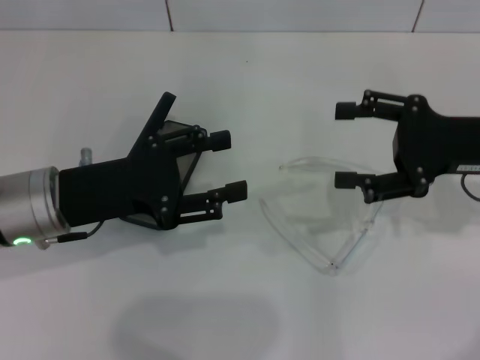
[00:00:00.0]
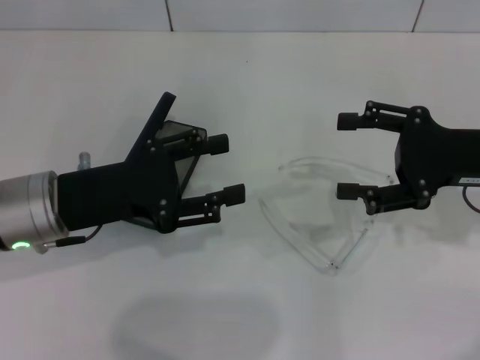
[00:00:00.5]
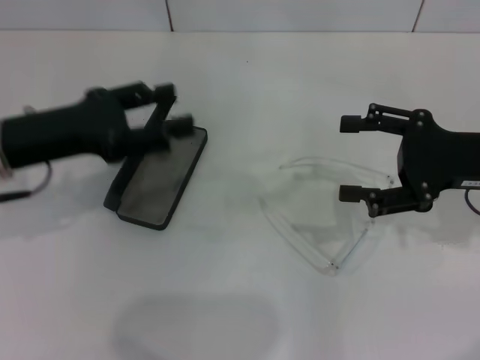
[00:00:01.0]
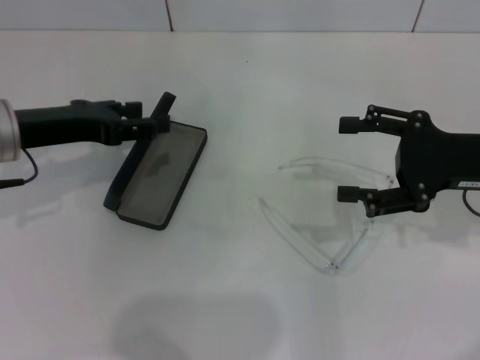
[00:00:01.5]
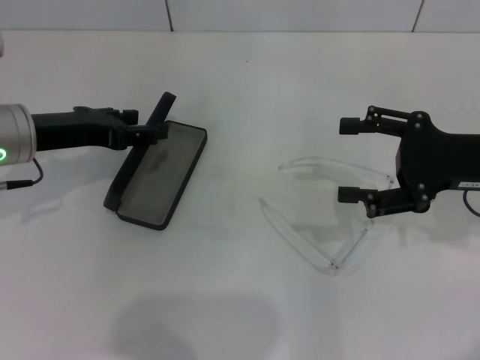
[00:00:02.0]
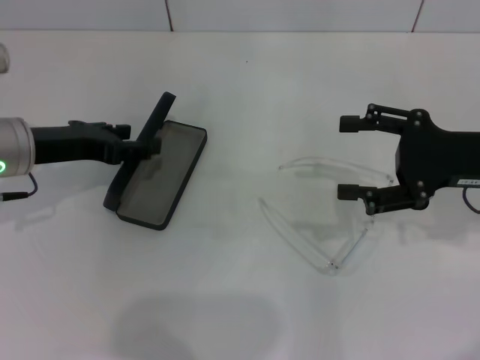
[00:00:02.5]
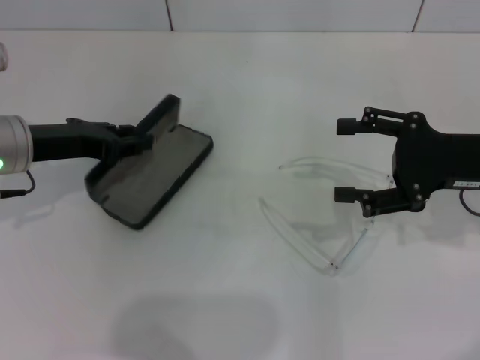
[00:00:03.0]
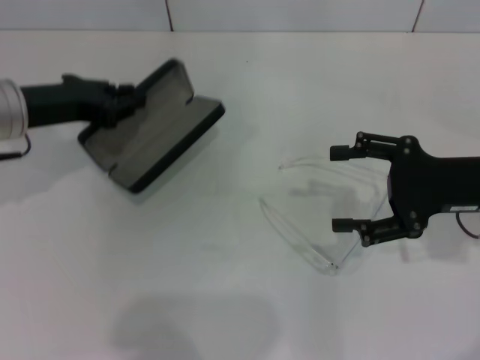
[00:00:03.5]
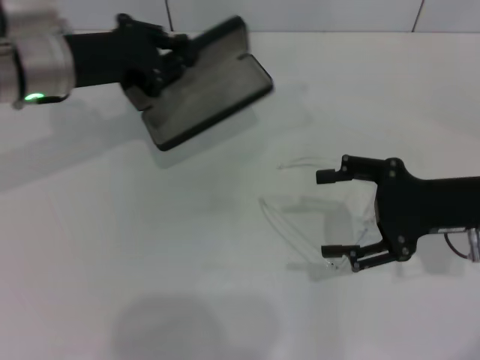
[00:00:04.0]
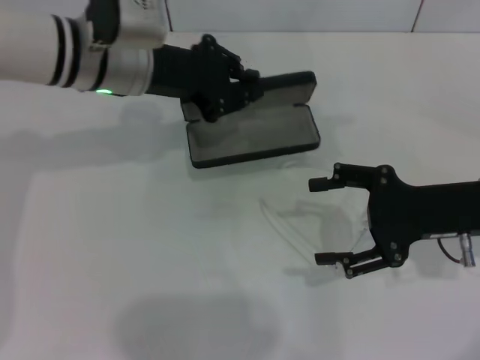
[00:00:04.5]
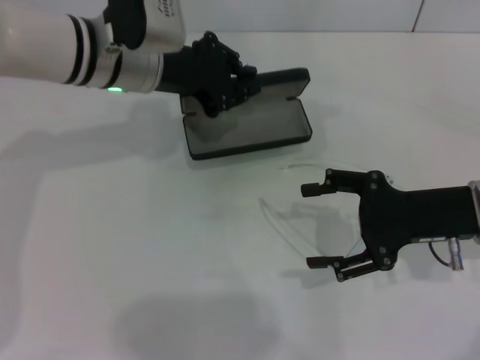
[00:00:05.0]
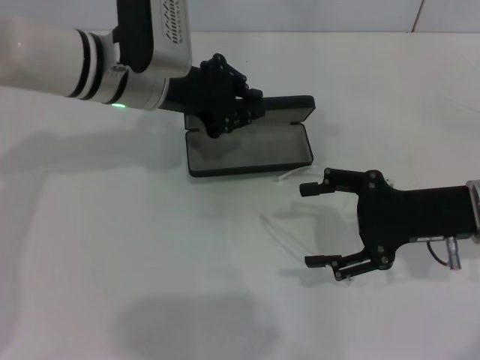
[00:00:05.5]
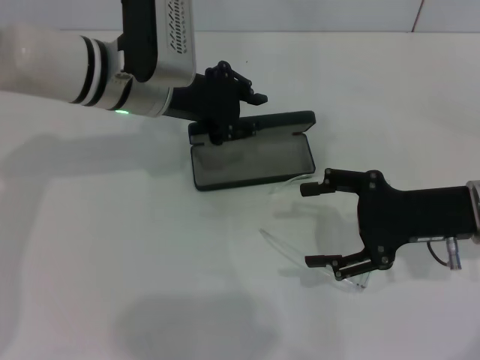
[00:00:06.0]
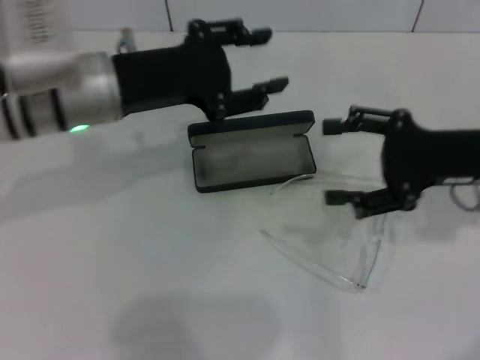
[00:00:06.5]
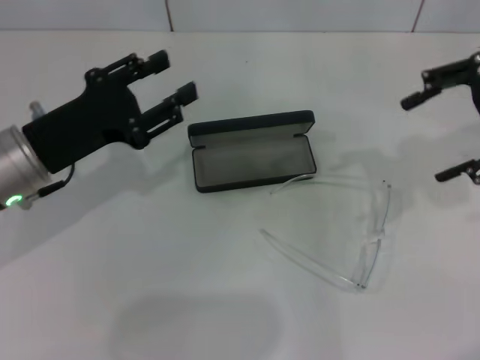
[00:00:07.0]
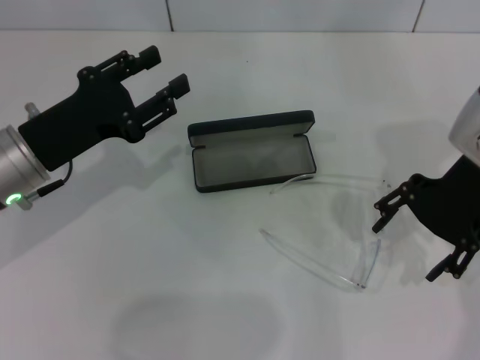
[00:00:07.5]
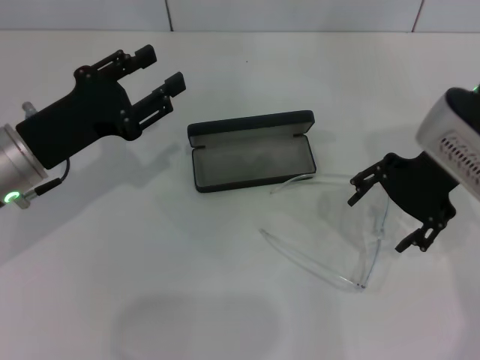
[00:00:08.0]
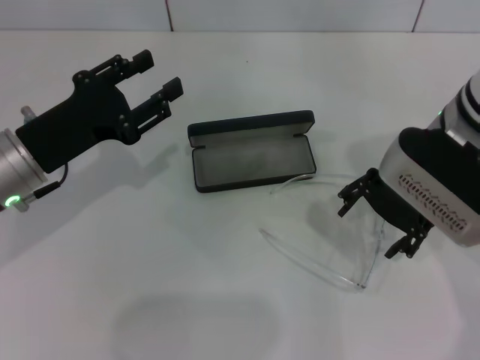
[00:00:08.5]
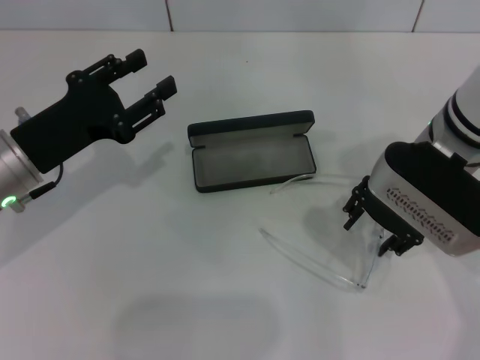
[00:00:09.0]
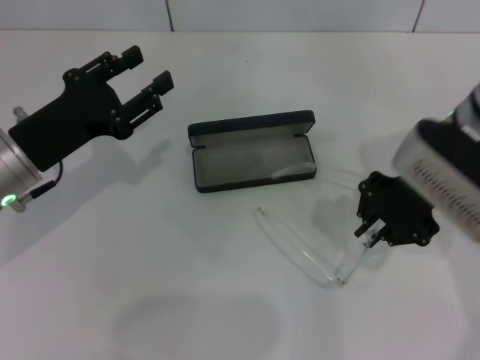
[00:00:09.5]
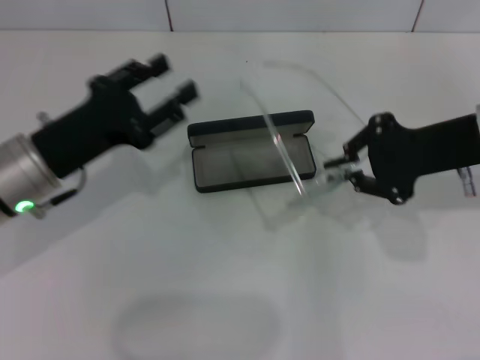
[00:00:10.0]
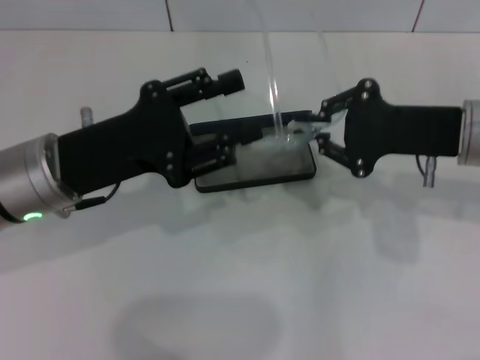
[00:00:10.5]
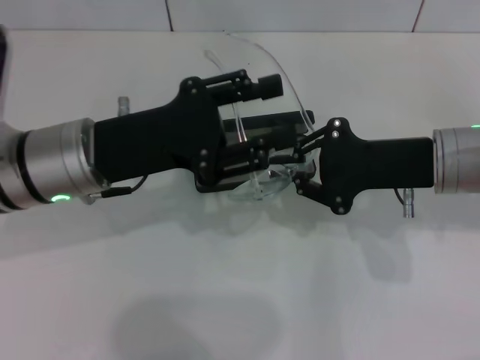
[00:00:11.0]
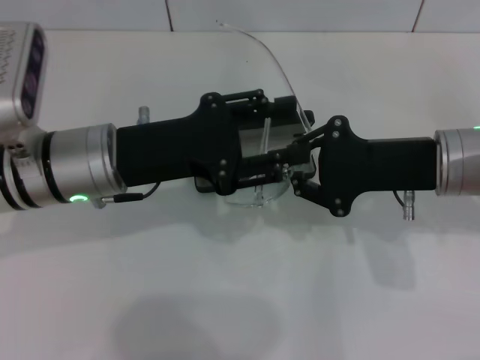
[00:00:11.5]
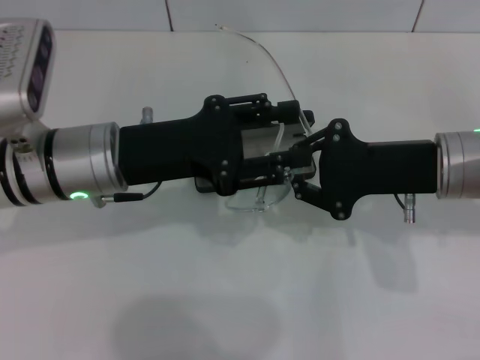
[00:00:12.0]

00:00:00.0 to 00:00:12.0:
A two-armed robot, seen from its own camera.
Step, 00:00:00.0 to 00:00:03.0: Grab the glasses case with your left hand.
Step, 00:00:03.5 to 00:00:05.5: Place the glasses case in the center of the table with your left hand.
Step, 00:00:06.0 to 00:00:09.0: Grab the eyeglass frame with your right hand.
00:00:00.0 to 00:00:02.0: The left gripper goes roughly 5 cm forward.
00:00:02.0 to 00:00:04.0: The left gripper ends up about 5 cm from where it was, and closes.
00:00:04.0 to 00:00:06.0: The left gripper heads to the right, covering about 10 cm.
00:00:06.0 to 00:00:08.0: The left gripper is displaced to the left and backward by about 15 cm, and opens. The right gripper is displaced upward and to the left by about 10 cm.
00:00:08.0 to 00:00:10.0: The right gripper changes place by some 5 cm, and closes its fingers.
00:00:10.0 to 00:00:12.0: The left gripper goes approximately 5 cm to the right. The right gripper moves about 5 cm.

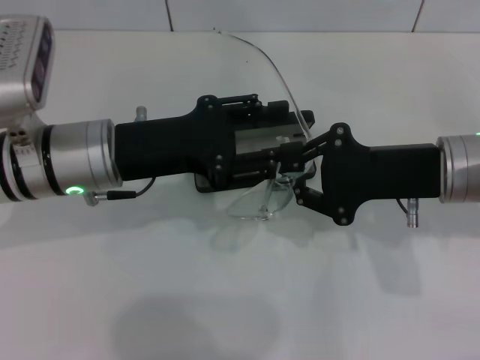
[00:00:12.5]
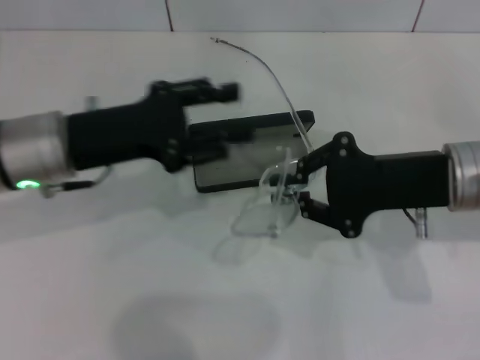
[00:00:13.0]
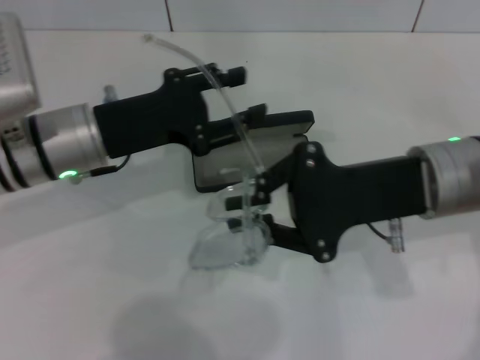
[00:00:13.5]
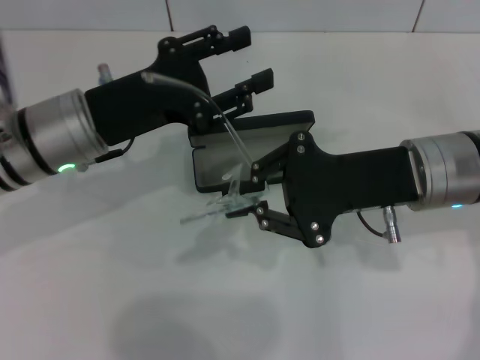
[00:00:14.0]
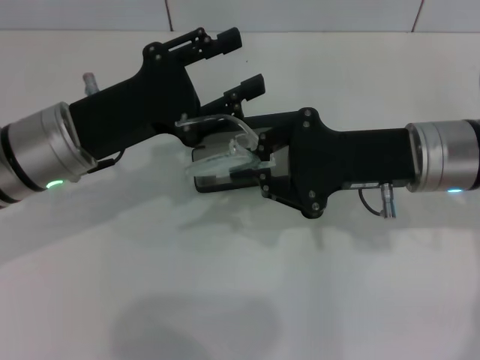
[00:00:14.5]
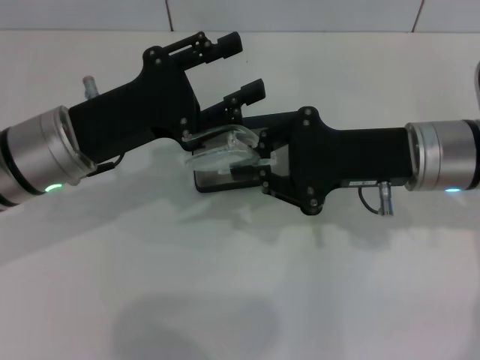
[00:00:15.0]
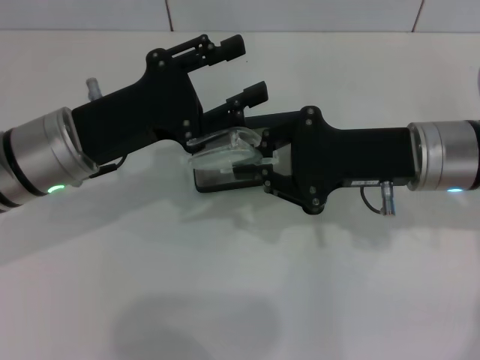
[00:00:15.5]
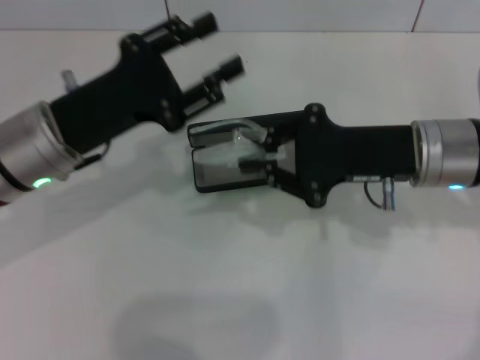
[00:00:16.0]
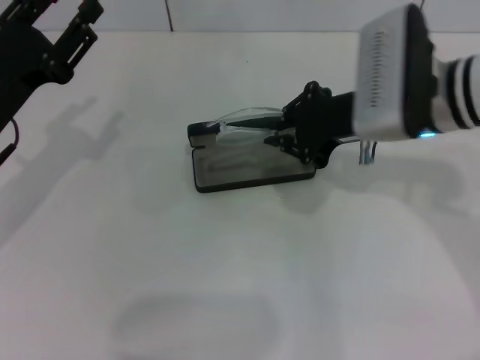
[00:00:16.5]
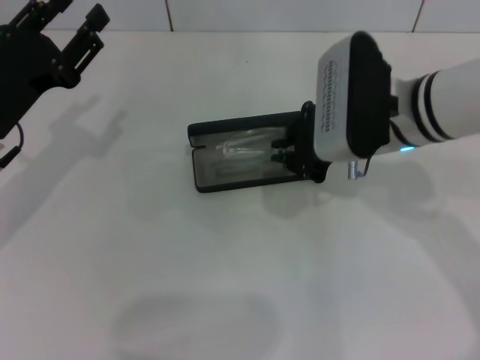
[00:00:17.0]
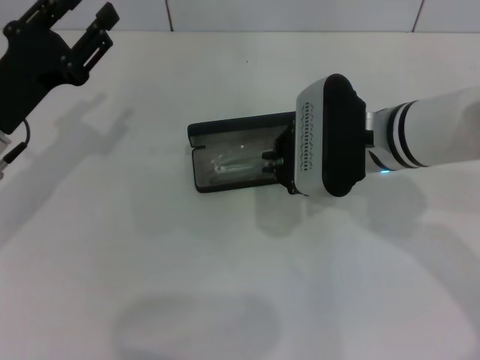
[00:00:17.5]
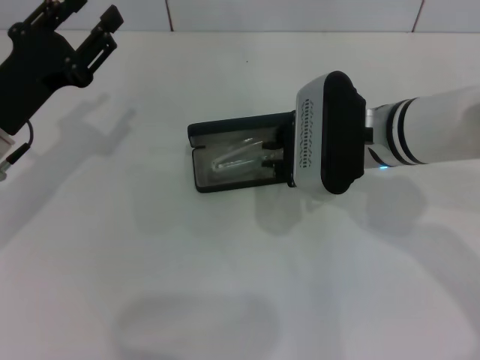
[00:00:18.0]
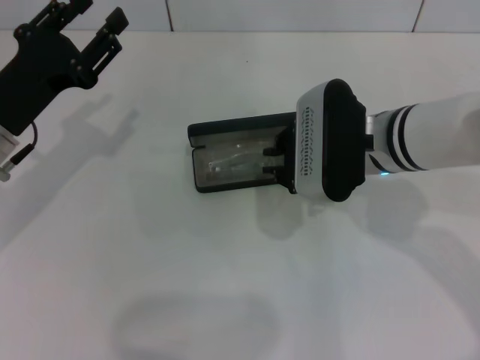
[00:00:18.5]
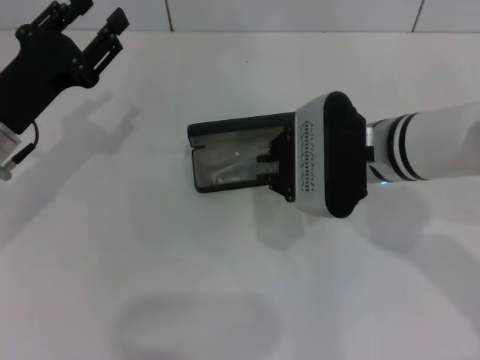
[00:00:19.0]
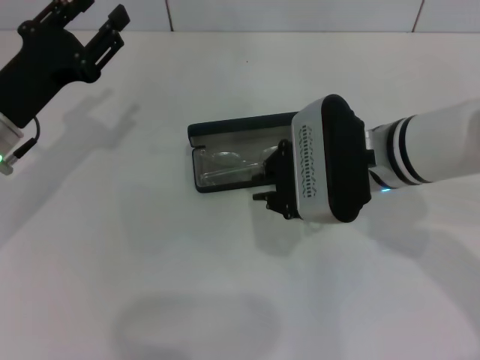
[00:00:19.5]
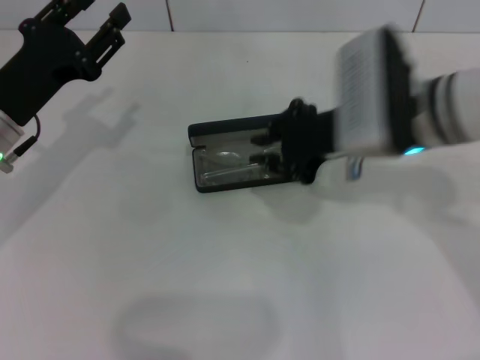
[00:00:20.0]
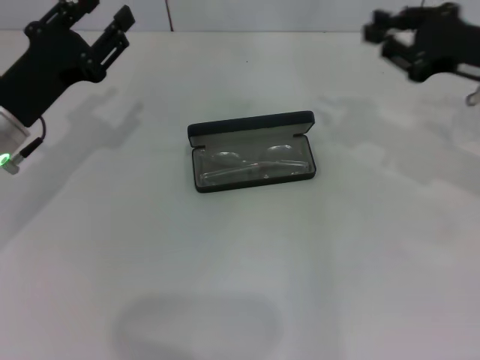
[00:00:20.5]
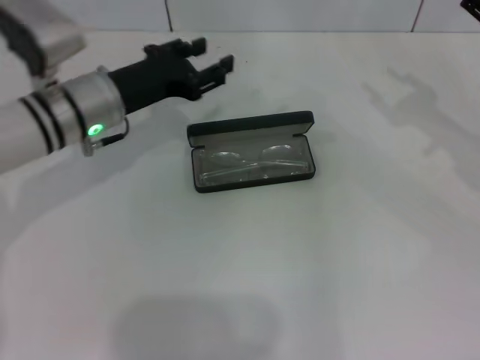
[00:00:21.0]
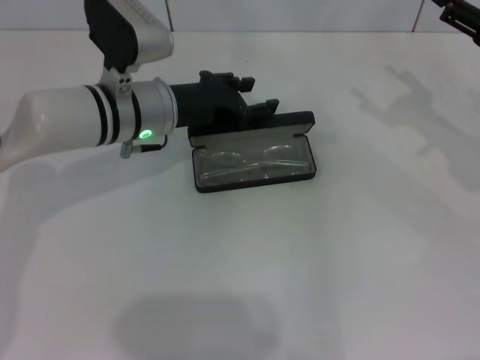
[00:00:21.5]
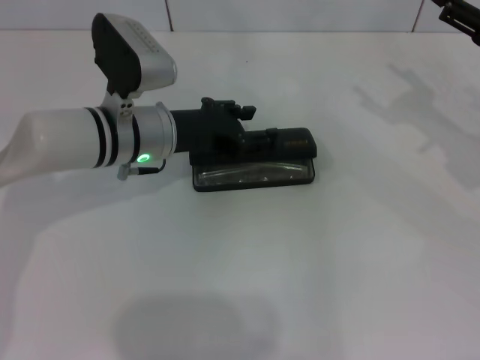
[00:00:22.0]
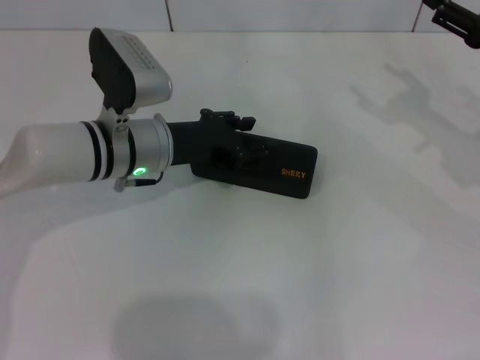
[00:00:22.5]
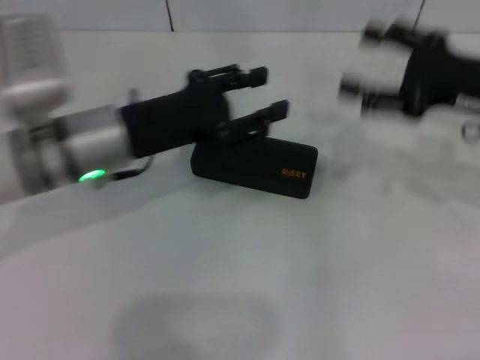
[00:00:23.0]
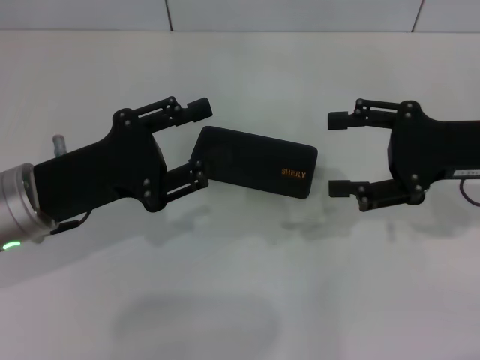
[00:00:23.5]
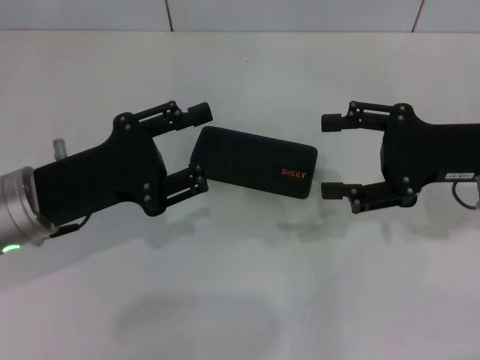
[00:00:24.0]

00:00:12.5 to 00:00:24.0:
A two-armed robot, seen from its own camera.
Step, 00:00:12.5 to 00:00:15.5: Fold the frame with your left hand.
Step, 00:00:16.0 to 00:00:19.5: Put the glasses into the case with your right hand.
Step, 00:00:20.0 to 00:00:22.0: Close the glasses case with your left hand.
00:00:14.5 to 00:00:16.5: The right gripper moves about 5 cm, while the left gripper moves to the left, roughly 10 cm.
00:00:16.5 to 00:00:18.5: The right gripper ends up roughly 5 cm from where it was.
00:00:18.5 to 00:00:20.0: There are only small adjustments of the grippers.
00:00:20.0 to 00:00:22.0: The right gripper shifts approximately 20 cm to the right, and opens up. Meanwhile the left gripper heads to the right and forward, covering roughly 15 cm.
00:00:22.0 to 00:00:24.0: The left gripper shifts some 15 cm backward and to the left, while the right gripper is displaced to the left by approximately 5 cm.
